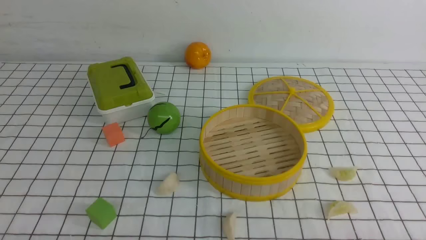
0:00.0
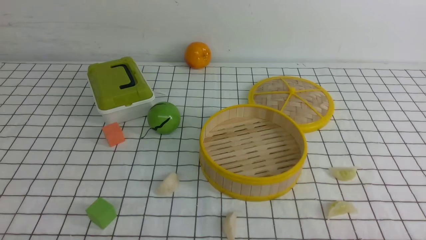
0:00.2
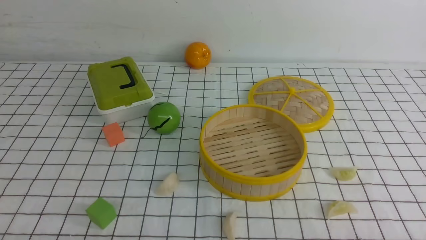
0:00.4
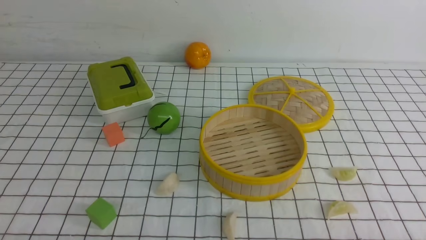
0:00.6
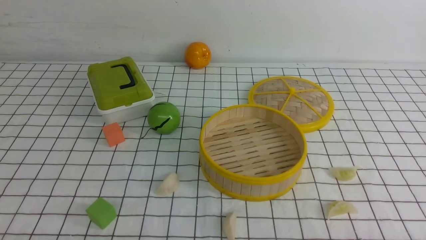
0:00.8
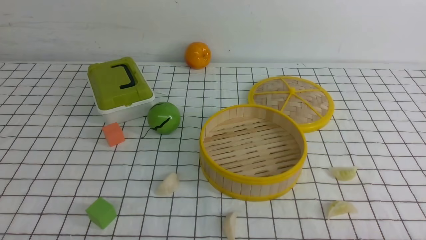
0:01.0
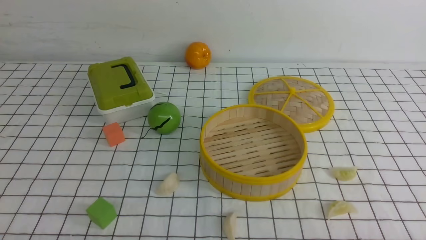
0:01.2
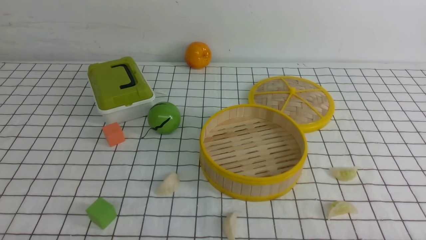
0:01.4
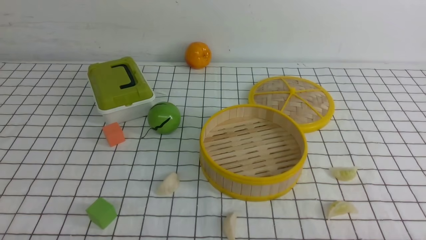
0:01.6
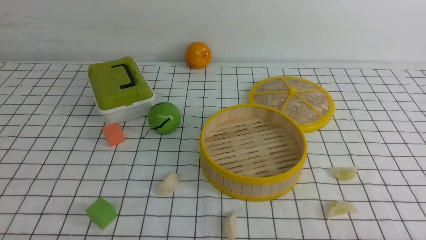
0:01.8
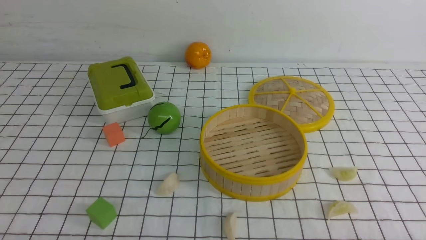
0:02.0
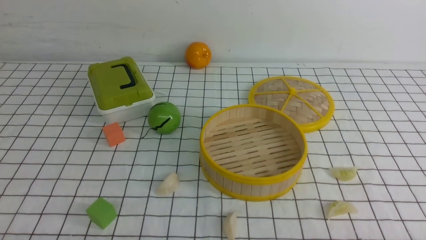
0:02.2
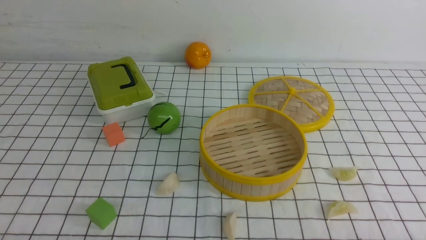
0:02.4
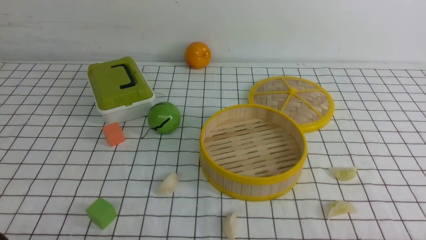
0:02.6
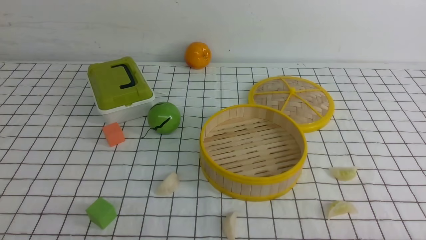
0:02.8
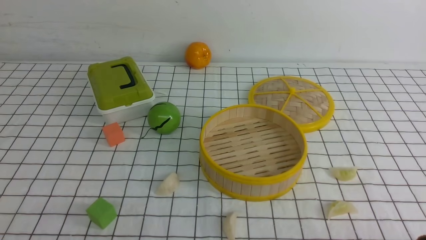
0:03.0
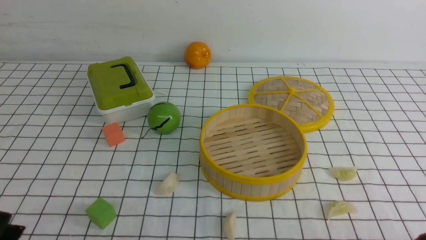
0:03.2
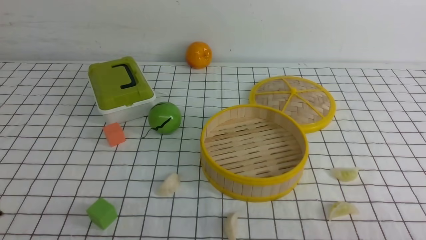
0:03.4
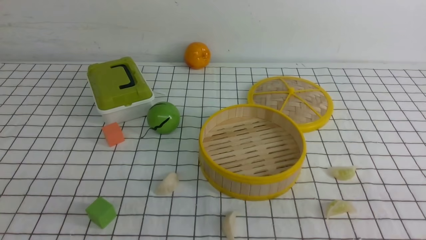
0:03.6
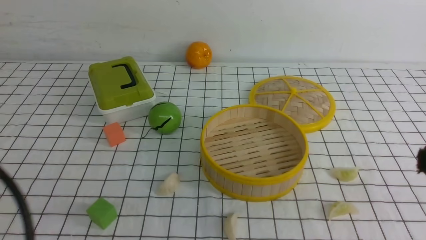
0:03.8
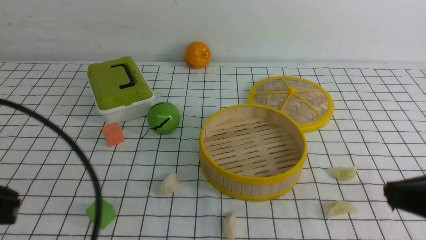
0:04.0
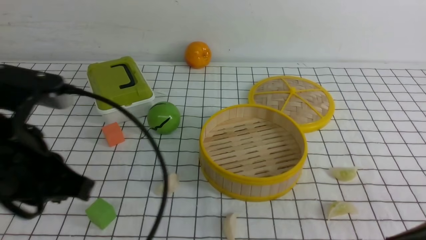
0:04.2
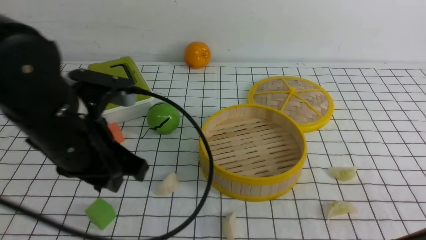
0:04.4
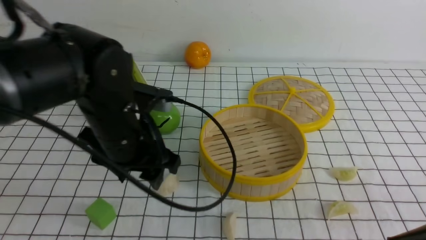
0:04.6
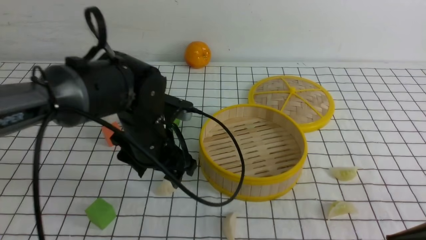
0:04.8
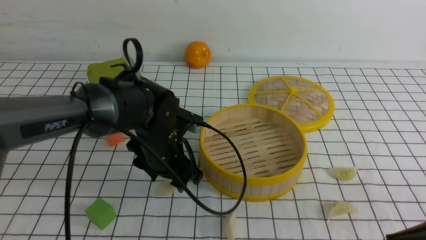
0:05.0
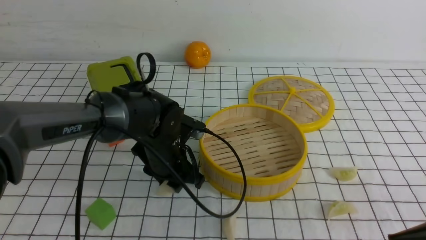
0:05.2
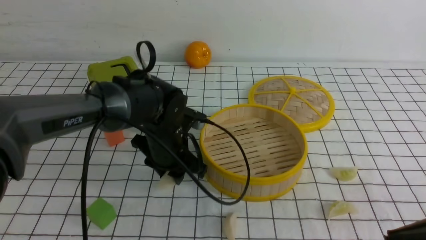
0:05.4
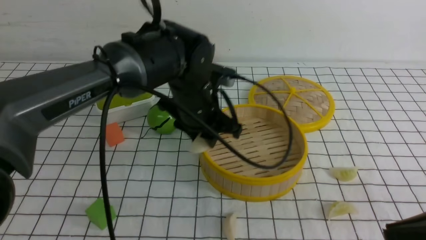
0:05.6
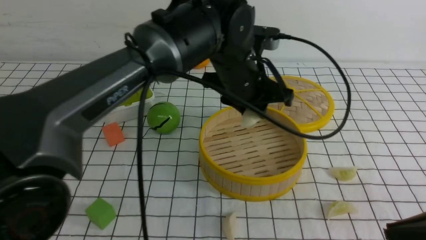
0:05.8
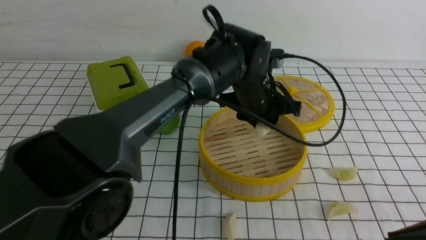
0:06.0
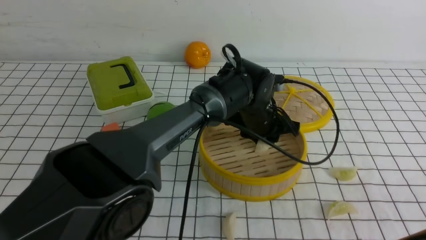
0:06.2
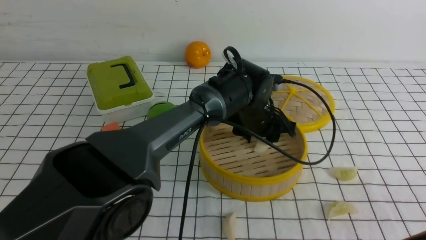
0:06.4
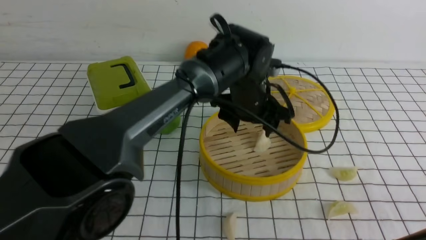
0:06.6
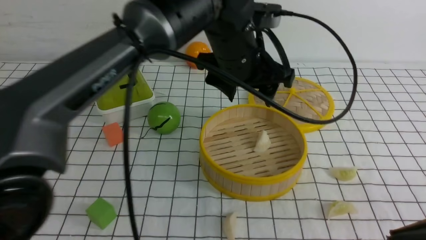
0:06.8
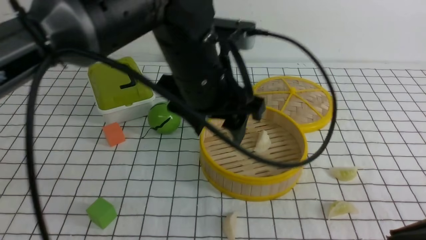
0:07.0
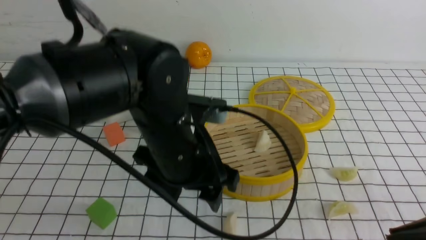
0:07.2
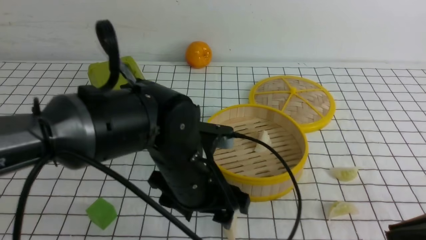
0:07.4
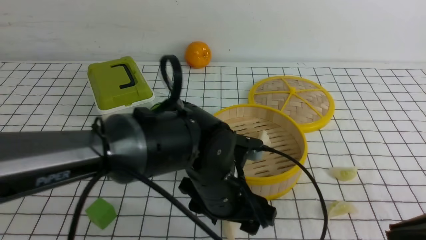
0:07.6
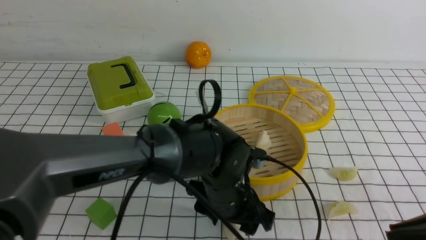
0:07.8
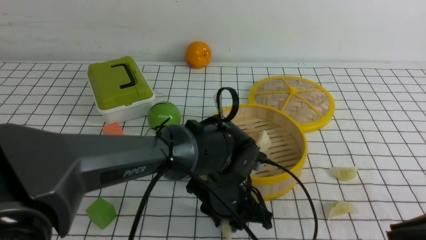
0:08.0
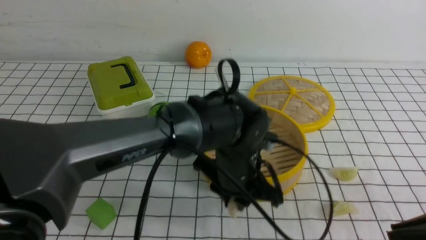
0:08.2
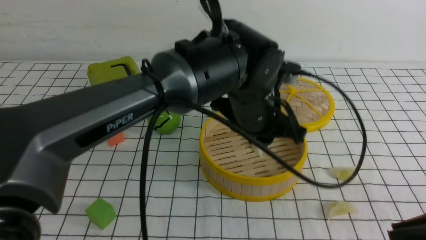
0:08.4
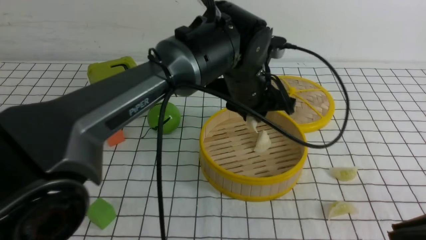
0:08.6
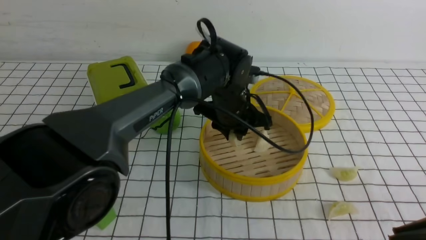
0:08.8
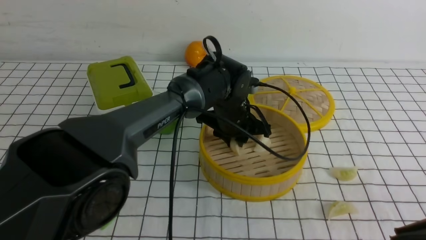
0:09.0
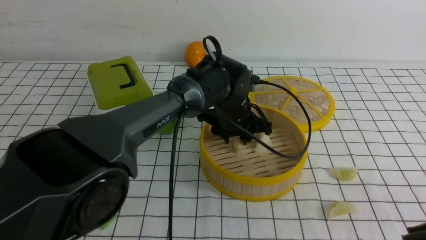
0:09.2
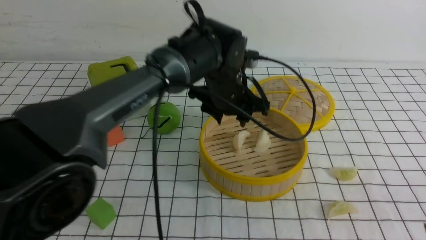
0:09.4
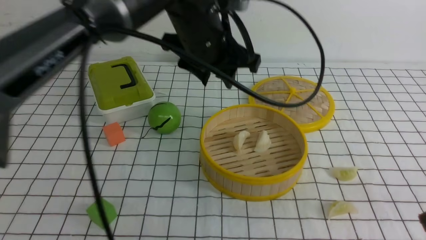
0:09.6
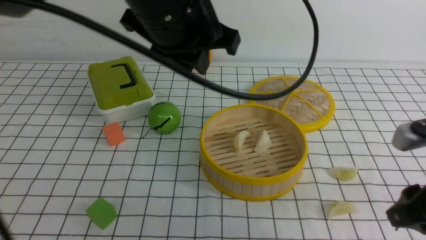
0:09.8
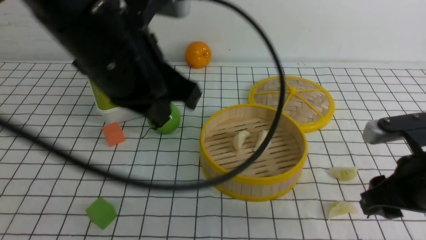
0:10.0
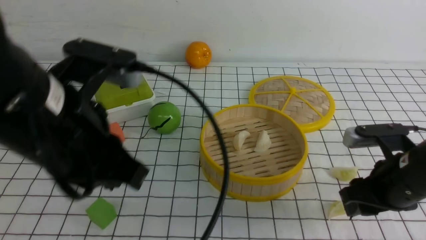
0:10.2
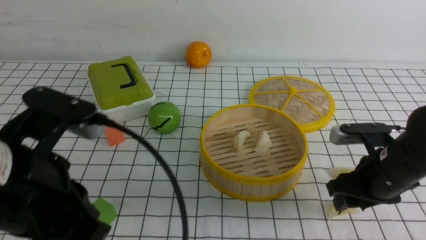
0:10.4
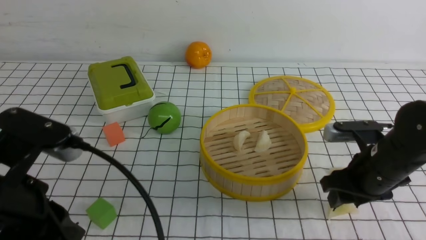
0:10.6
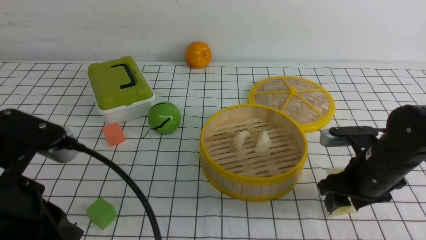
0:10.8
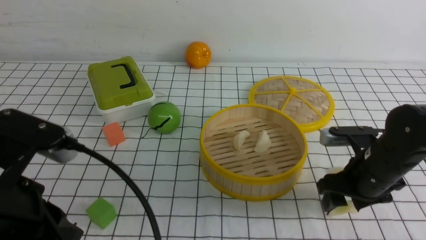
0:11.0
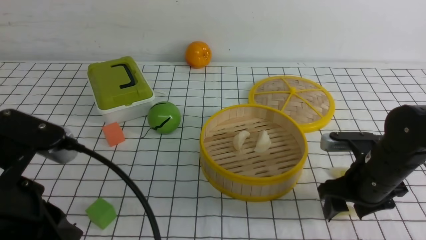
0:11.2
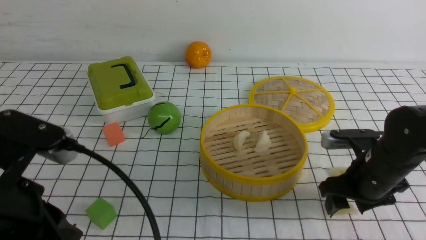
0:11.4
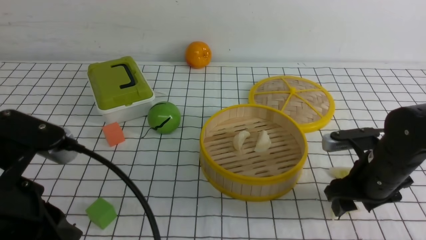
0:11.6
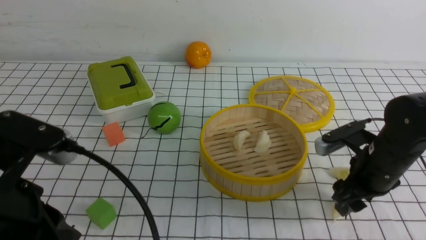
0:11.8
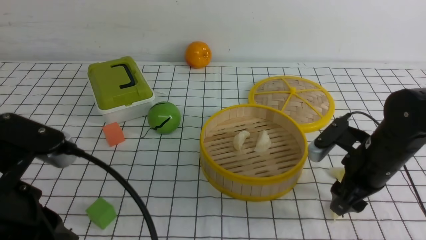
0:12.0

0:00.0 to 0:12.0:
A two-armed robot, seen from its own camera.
Task of the whole recording: put the dumplings into the steamer on the table with the white tablecloth.
Step, 0:00.0 to 0:05.4: use the left arm to grab a dumpling.
Step, 0:05.6 to 0:06.6: use the left arm to put the dumpling into the steamer.
Step, 0:07.0 to 0:08.4: use the left arm to grab a dumpling.
Step, 0:08.6 to 0:09.4: use the left arm to put the dumpling into the steamer.
0:03.0 to 0:04.4: The right gripper travels upward by roughly 15 cm, and closes. The left gripper goes some 20 cm forward, upward and to the right.
0:04.4 to 0:06.0: The left gripper travels to the right and forward by about 25 cm, and opens and closes again.
0:06.0 to 0:07.6: The left gripper travels backward and downward by approximately 15 cm, and opens.
0:07.6 to 0:09.0: The left gripper is displaced forward by about 15 cm, and closes its fingers.
0:09.0 to 0:10.4: The left gripper travels backward, to the left and upward by approximately 35 cm, and closes up. Meanwhile the right gripper moves forward and downward, some 20 cm, and opens up.
0:10.4 to 0:12.0: The left gripper changes place by some 5 cm.

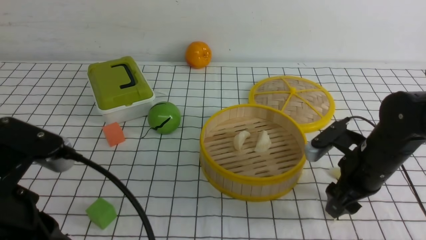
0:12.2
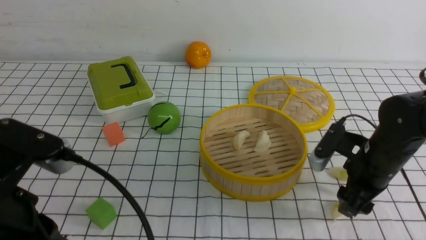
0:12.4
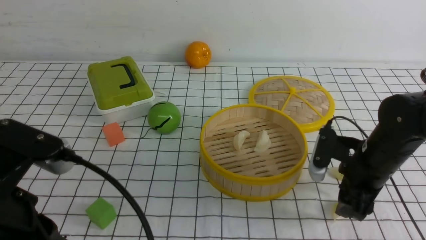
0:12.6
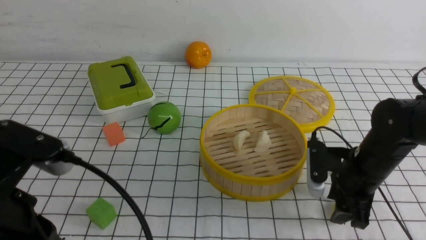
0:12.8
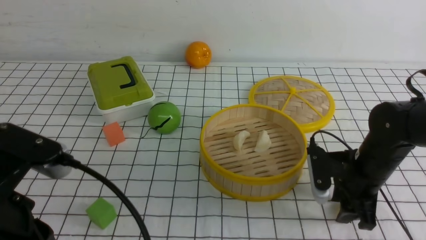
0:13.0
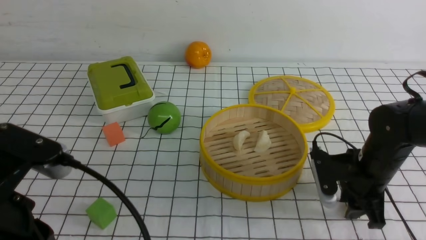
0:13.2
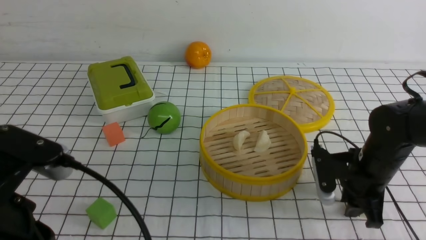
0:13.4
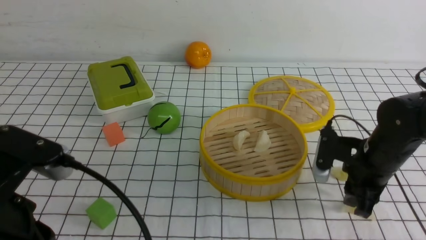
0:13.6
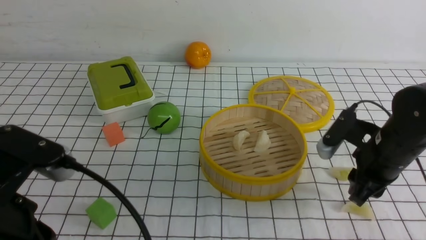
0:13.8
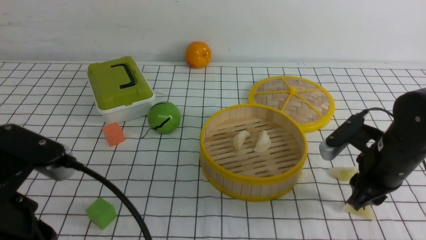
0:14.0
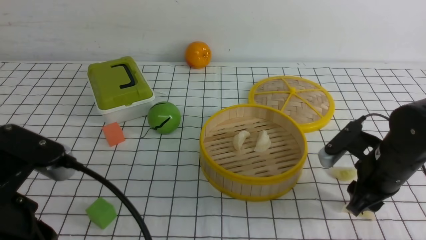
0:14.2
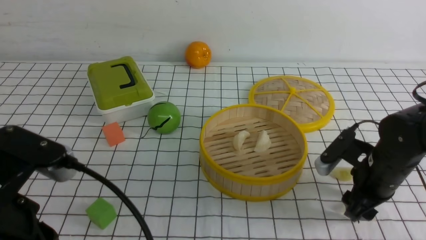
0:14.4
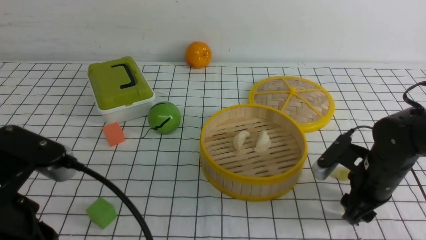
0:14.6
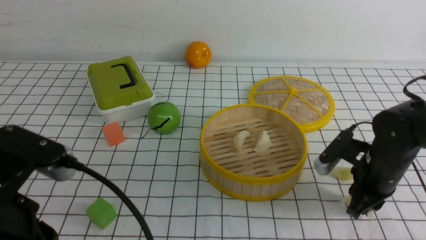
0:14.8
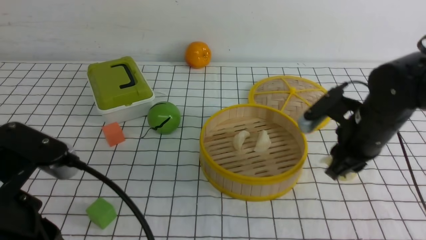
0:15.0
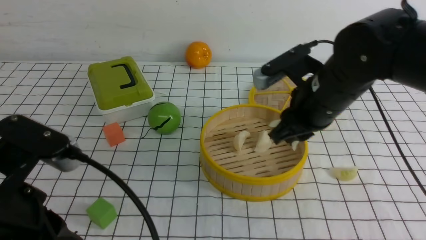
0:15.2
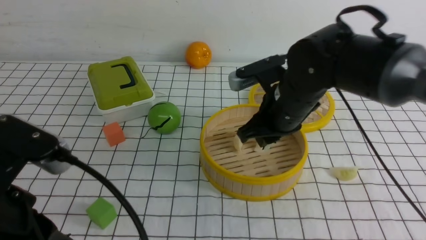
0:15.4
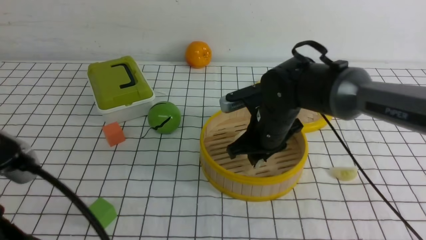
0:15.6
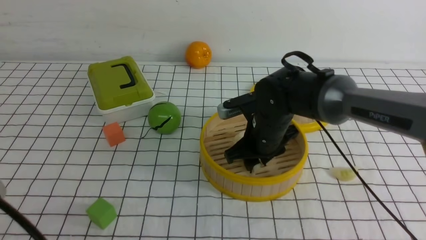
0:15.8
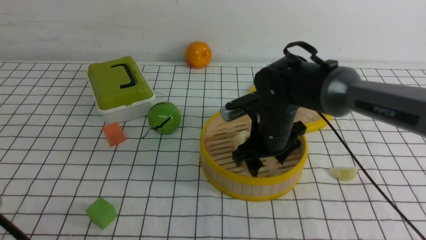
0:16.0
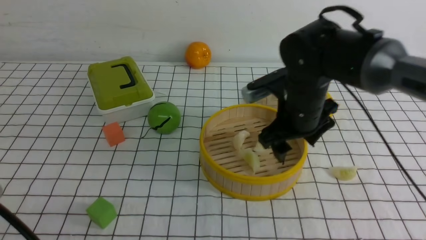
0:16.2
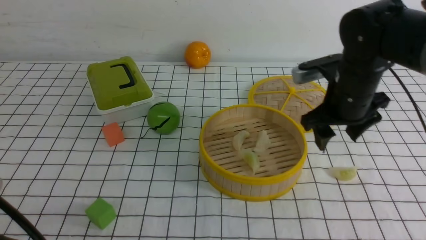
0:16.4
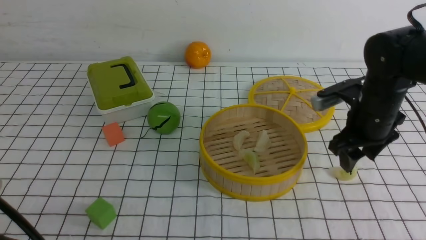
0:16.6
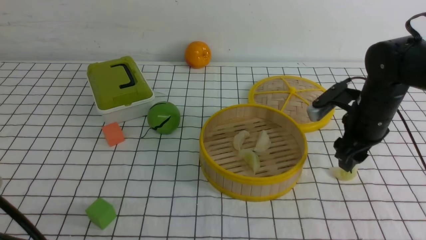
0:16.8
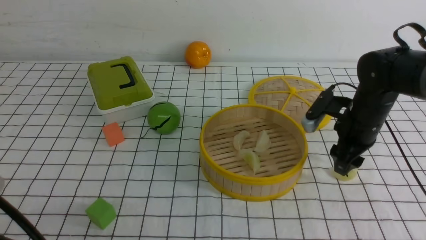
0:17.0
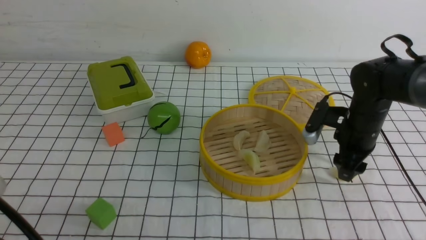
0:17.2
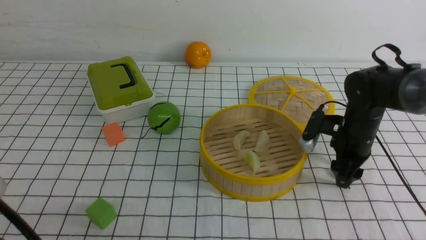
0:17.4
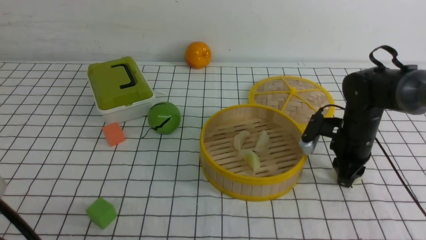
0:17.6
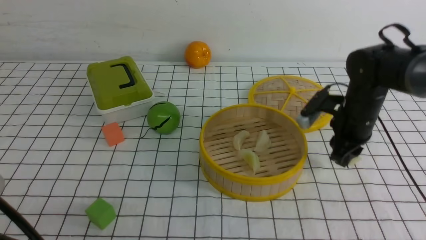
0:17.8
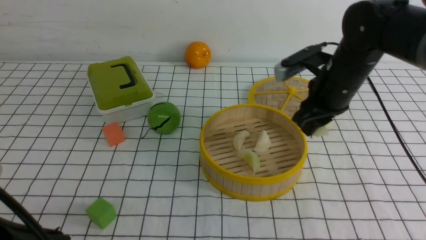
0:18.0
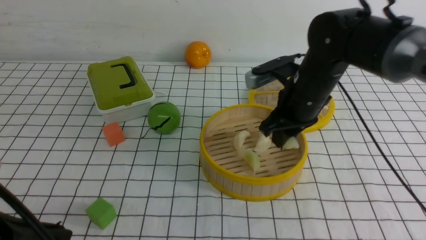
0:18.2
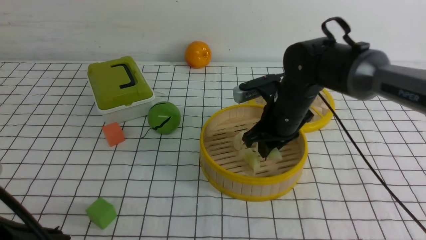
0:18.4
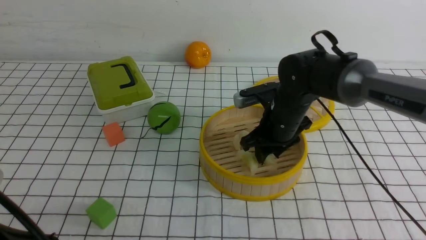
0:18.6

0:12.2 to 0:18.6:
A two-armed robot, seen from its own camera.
Task of the whole recording: put the dumplings into the steamer on the table with the white tablecloth.
Step, 0:12.2 to 0:15.2: use the right arm to grab a dumpling.
Step, 0:15.4 to 0:16.2: use the right arm to put the dumpling into the steamer.
Step, 0:16.4 to 0:18.0: use the right arm to grab a dumpling.
0:12.2 to 0:13.8: The right gripper closes up.
0:13.8 to 0:15.4: The right gripper shifts some 15 cm to the left and upward.
0:15.4 to 0:17.0: The right gripper travels to the right and downward by some 15 cm, and opens its fingers.
0:17.0 to 0:18.6: The right gripper heads to the left, covering approximately 15 cm.
